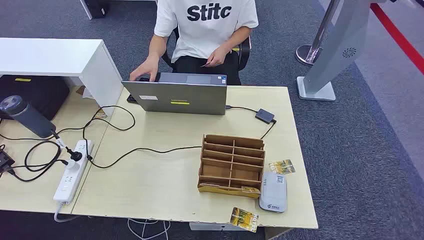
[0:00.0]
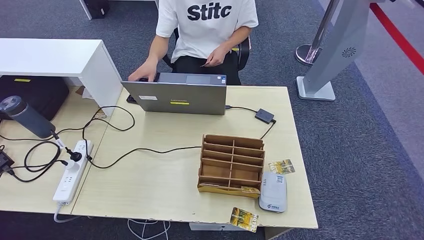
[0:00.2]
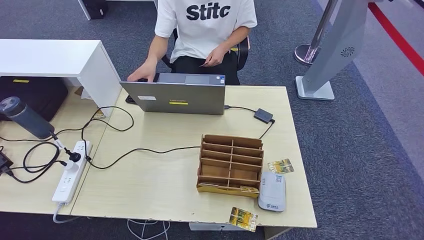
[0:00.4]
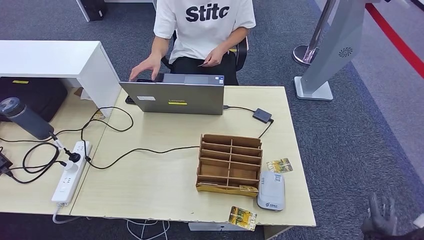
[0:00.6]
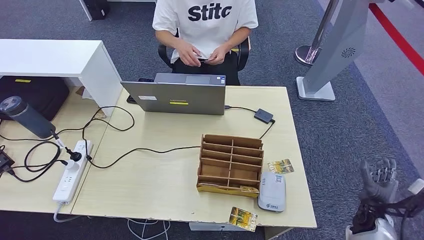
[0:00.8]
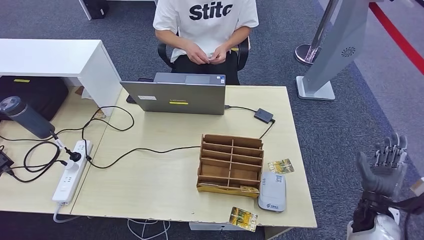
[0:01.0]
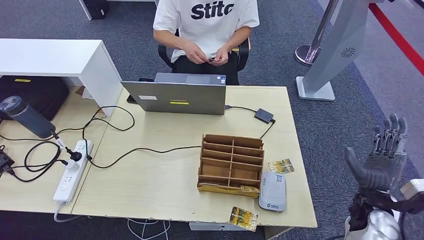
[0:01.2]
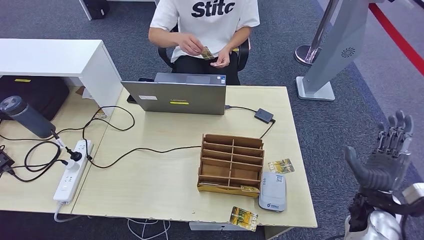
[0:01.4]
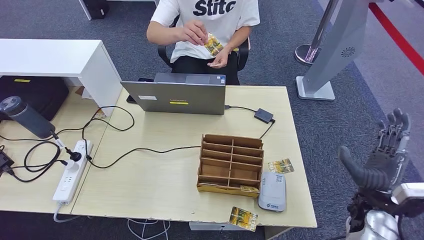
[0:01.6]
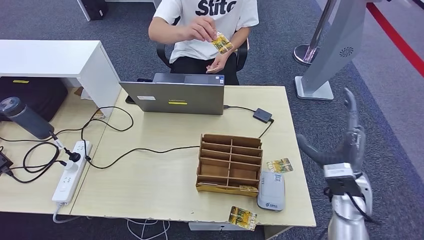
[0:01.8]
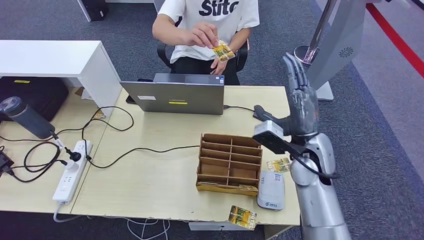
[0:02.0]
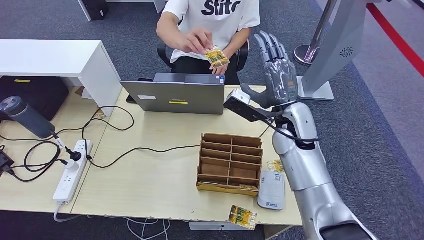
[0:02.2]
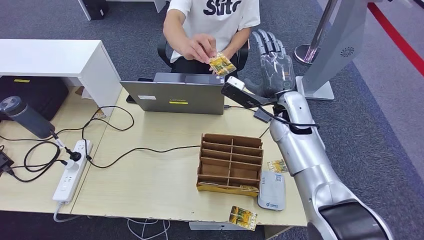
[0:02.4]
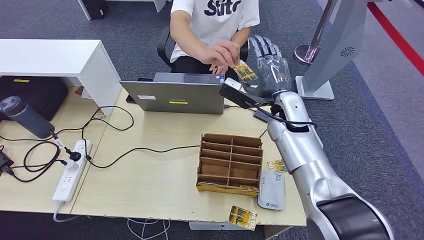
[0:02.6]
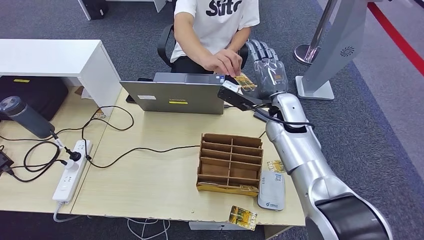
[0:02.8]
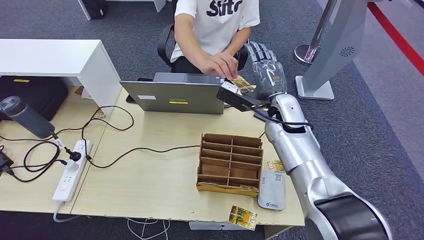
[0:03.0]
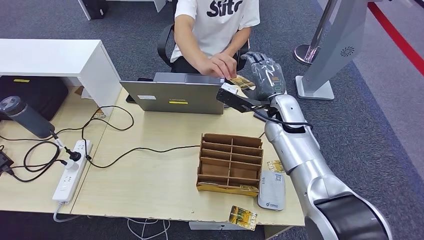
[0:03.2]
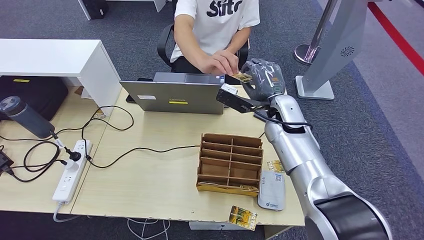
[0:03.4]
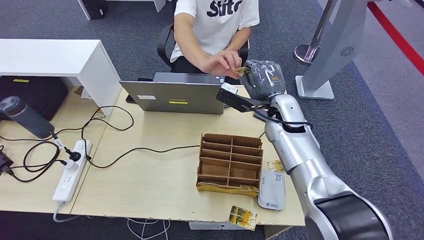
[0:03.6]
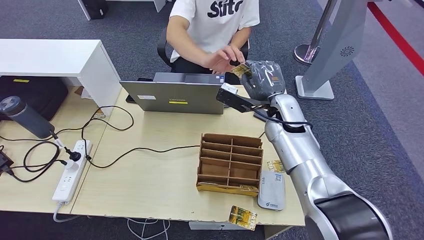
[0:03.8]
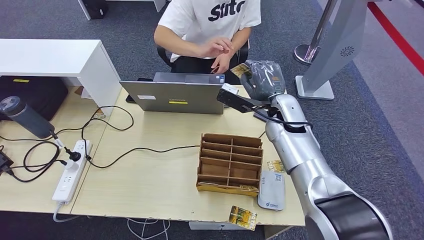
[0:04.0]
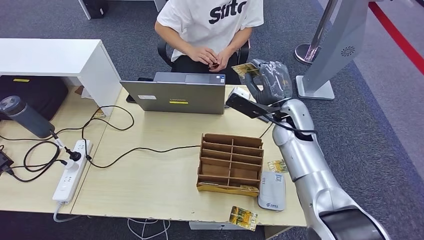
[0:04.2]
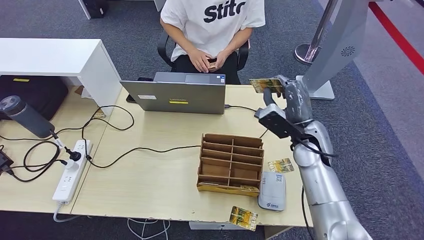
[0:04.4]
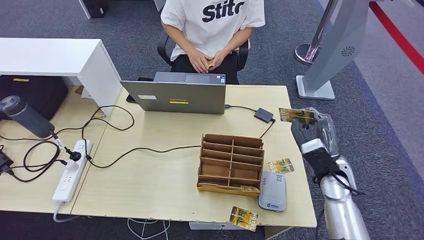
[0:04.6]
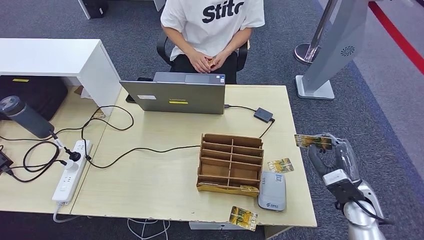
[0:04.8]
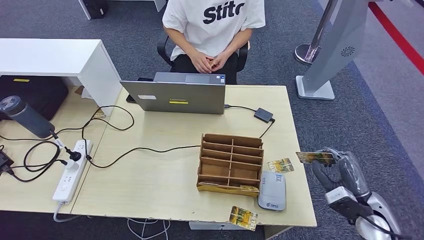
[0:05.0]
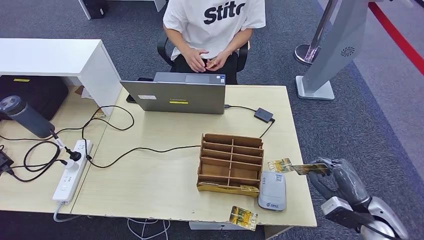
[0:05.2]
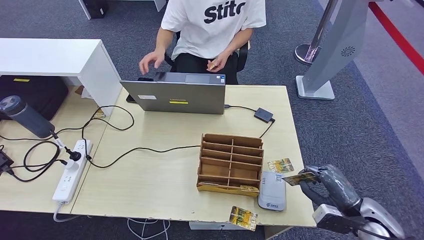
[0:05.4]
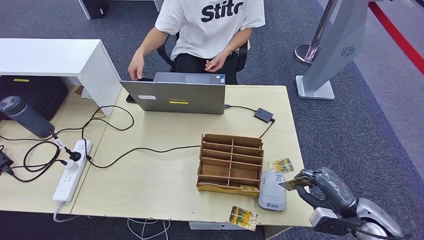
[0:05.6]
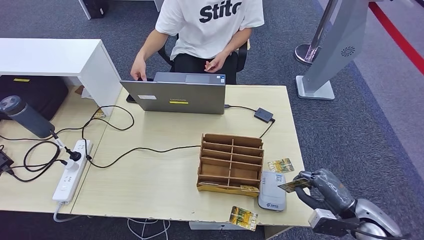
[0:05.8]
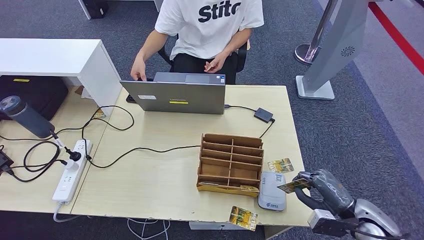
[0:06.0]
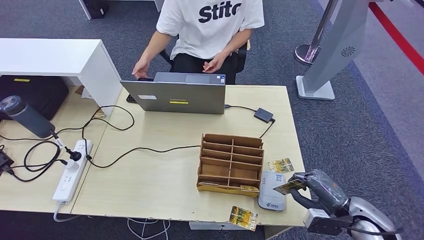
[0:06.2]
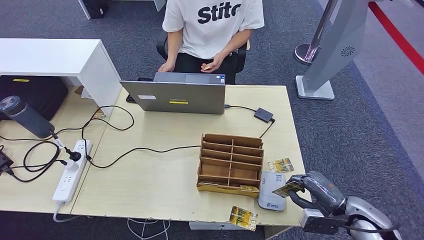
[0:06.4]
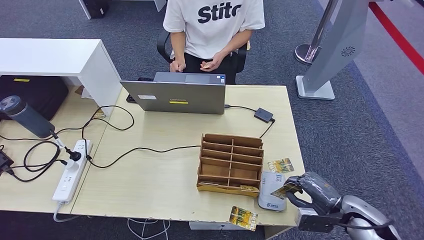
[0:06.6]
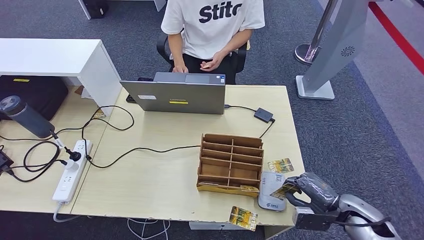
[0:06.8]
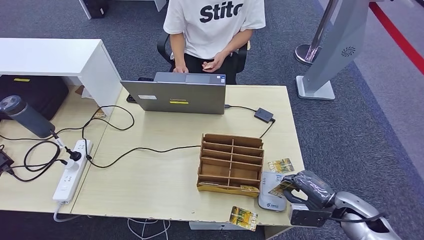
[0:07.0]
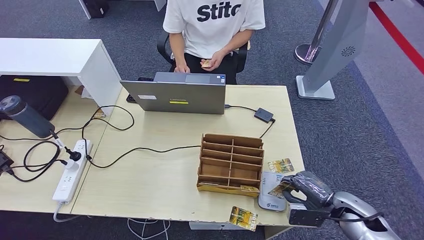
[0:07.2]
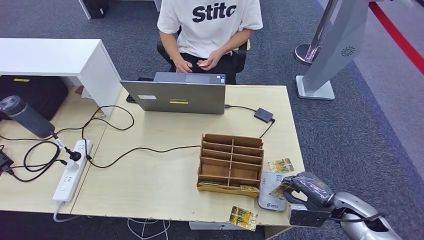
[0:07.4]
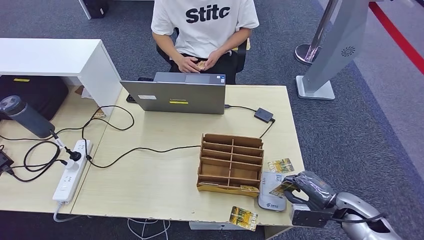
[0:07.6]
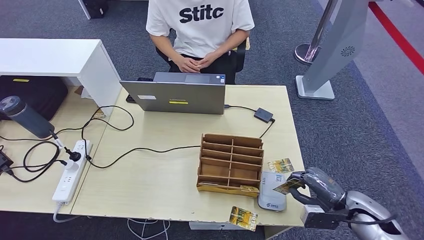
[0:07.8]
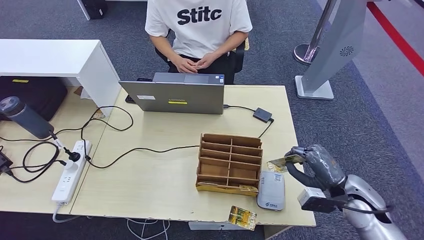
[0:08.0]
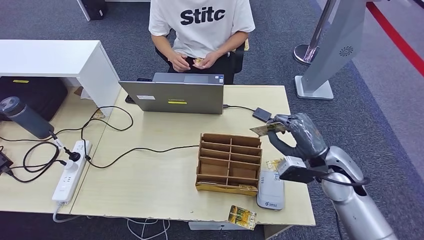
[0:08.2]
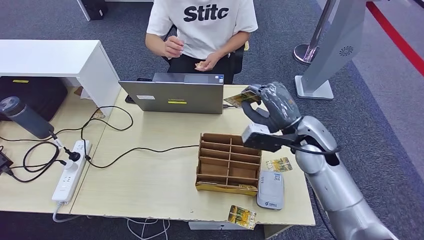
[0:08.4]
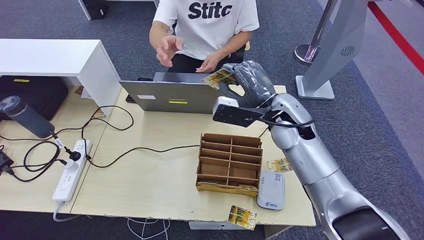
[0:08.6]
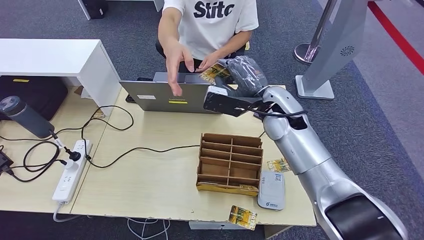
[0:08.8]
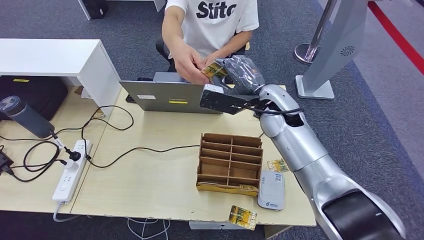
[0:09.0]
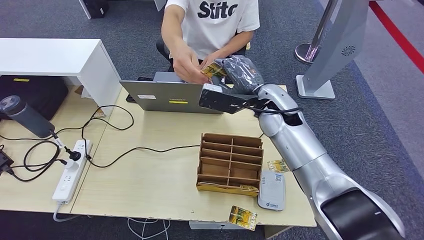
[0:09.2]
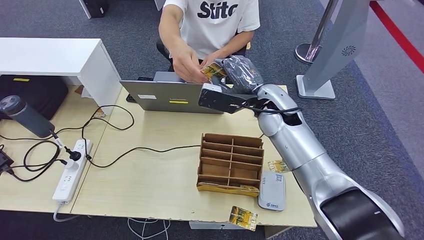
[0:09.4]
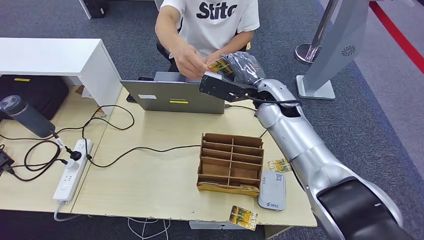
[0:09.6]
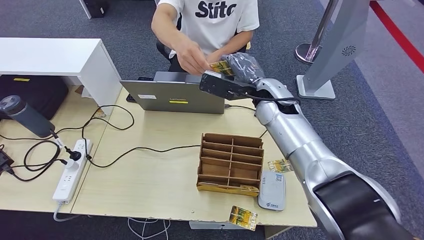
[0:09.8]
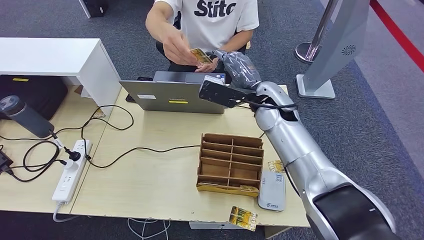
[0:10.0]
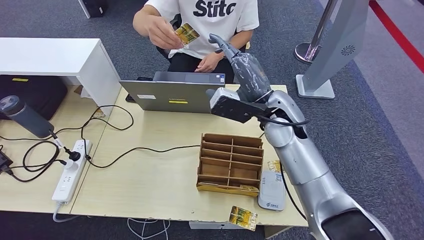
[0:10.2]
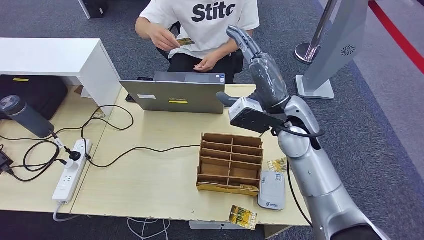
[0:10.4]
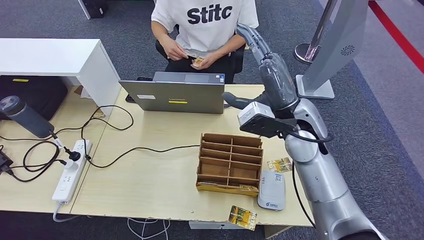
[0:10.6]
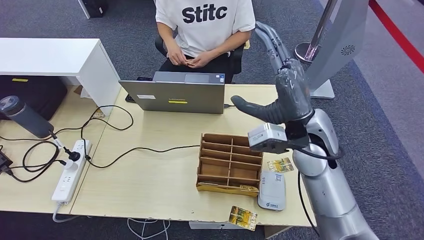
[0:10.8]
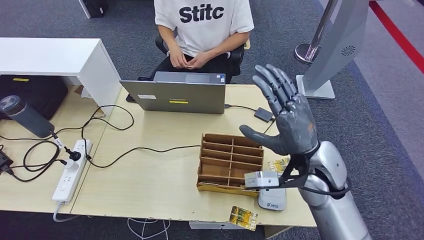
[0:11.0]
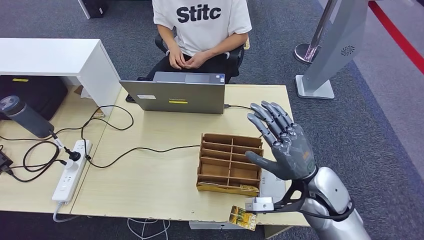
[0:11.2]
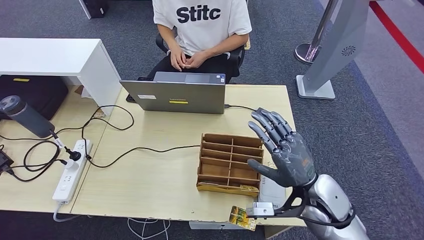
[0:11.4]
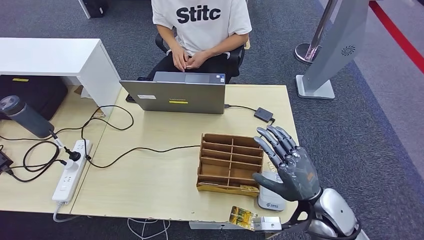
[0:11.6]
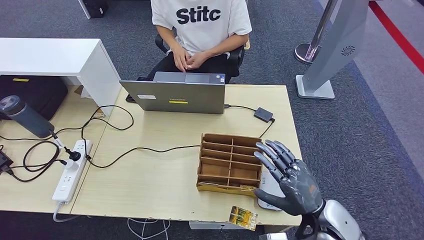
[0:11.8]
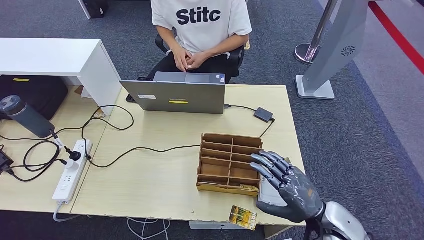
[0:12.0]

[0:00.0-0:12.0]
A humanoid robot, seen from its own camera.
Step, 0.0 to 4.2 s: Take the ID card from the person's hand.
Step, 4.4 to 8.4 s: Place the ID card on the card reader.
Step, 8.6 to 10.8 s: Hand the ID card to the person.
1.6 to 3.0 s: The right hand goes approximately 30 cm forward, to the left and upward.
3.0 to 4.4 s: The right hand goes approximately 10 cm to the right and backward.
4.4 to 6.0 s: The right hand is displaced backward, to the right and downward by approximately 25 cm.
6.0 to 7.6 s: The hands stay close to where they were, moving slightly.
7.6 to 9.0 s: The right hand travels to the left, upward and forward by about 35 cm.
9.0 to 10.4 s: The right hand changes place by about 5 cm.
10.4 to 12.0 s: The right hand moves backward, downward and to the right, roughly 25 cm.

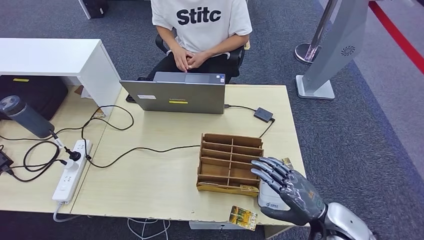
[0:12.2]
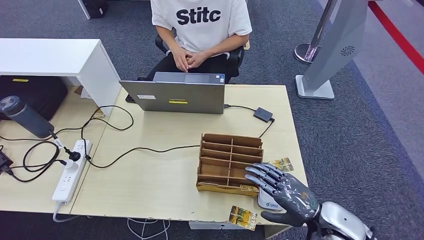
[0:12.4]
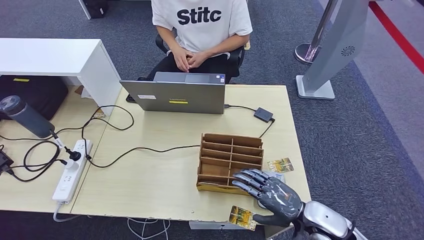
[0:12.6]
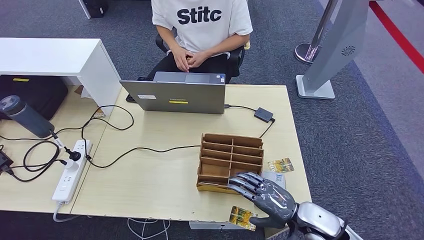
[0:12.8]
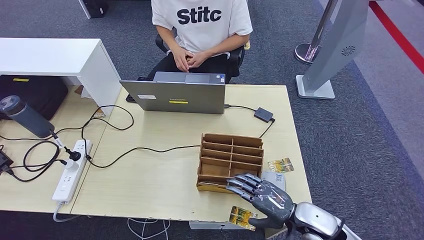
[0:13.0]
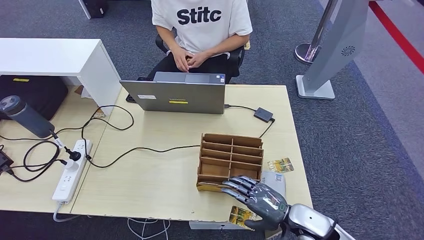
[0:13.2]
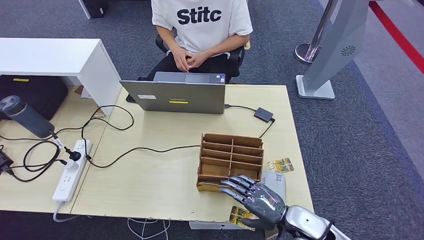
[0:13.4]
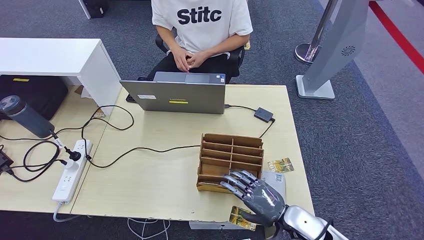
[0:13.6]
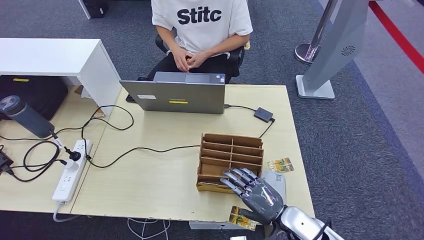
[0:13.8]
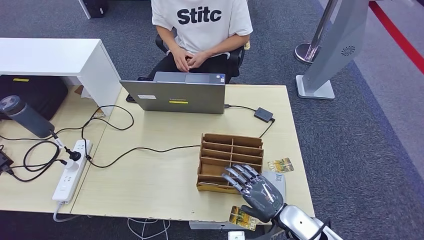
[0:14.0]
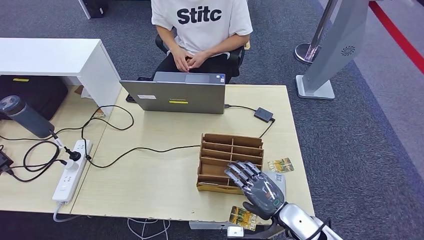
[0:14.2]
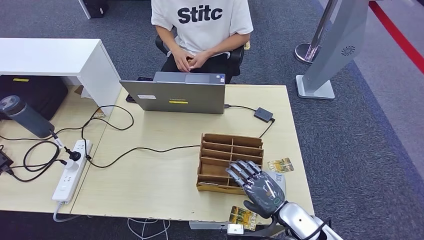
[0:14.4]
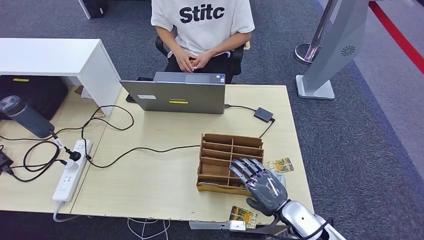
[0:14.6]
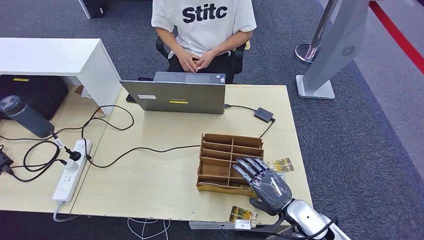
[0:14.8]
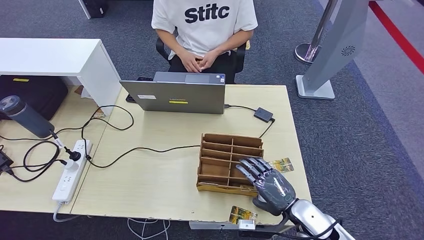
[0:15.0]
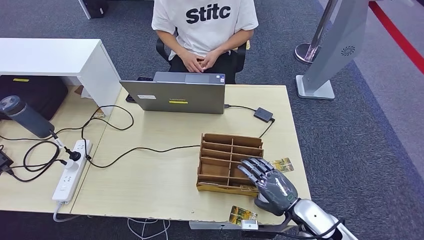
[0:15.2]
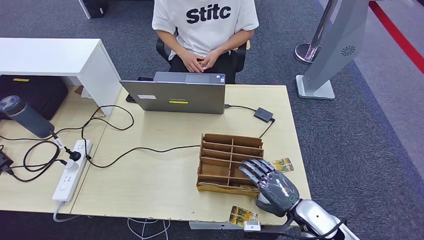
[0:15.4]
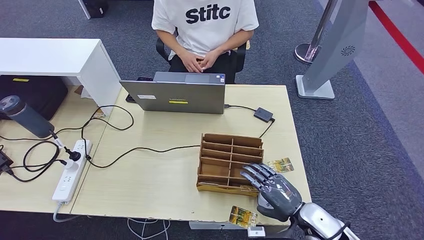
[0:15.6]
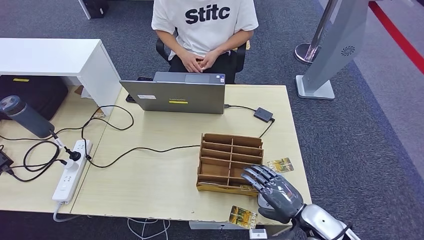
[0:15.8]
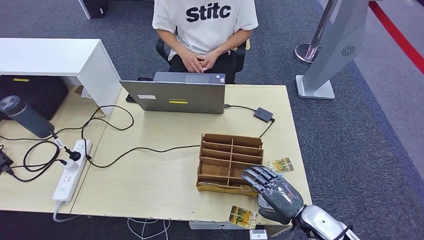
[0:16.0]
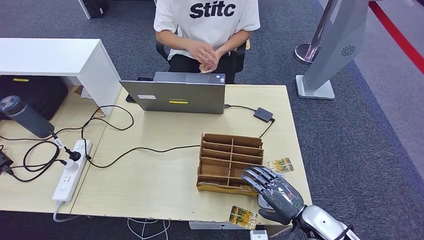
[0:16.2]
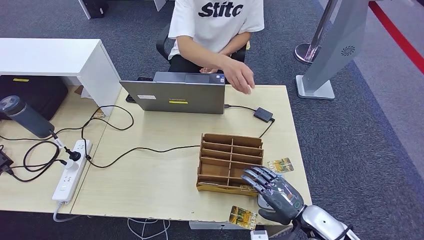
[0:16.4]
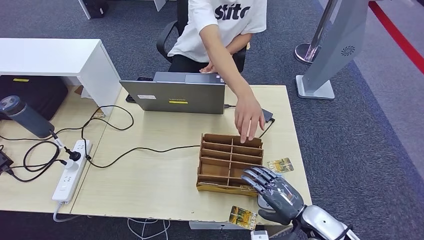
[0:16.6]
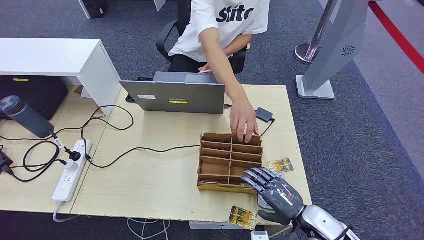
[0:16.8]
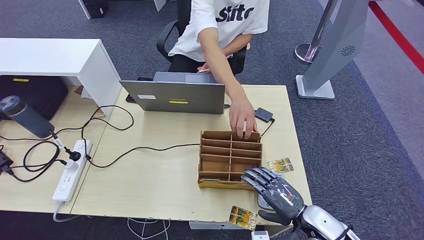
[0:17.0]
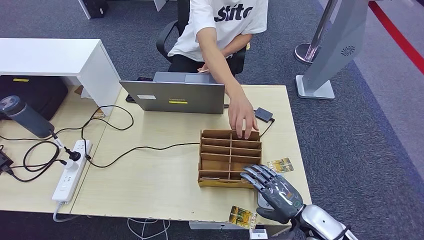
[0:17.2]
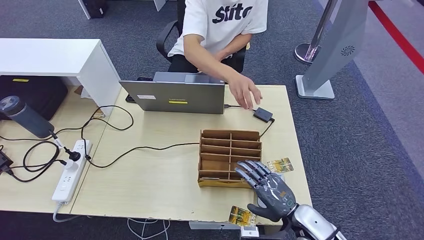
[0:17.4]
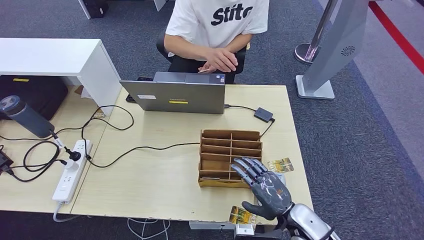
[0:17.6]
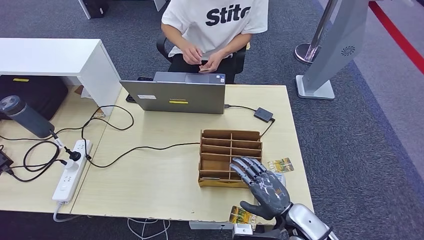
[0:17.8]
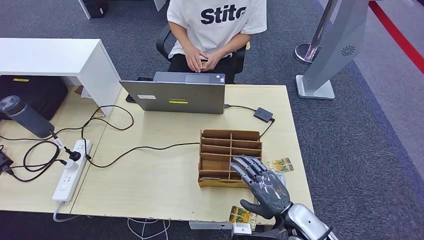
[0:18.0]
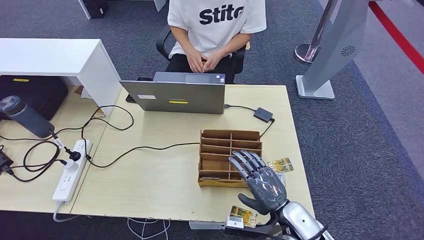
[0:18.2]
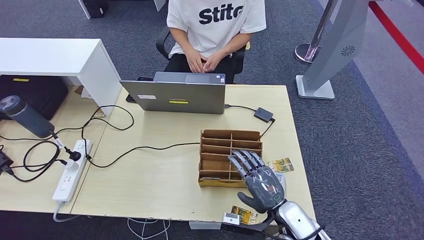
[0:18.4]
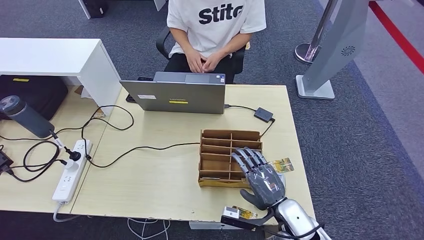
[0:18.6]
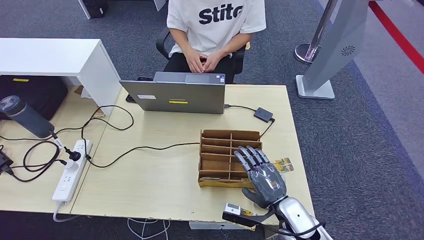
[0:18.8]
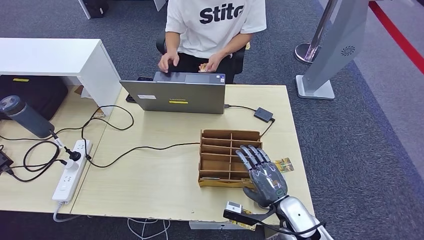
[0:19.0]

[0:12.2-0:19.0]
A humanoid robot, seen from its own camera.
12.2 to 13.6 s: The right hand travels to the left and downward by approximately 10 cm.
13.6 to 17.6 s: The hands move only a little.
17.6 to 19.0 s: The hands move only a little.
